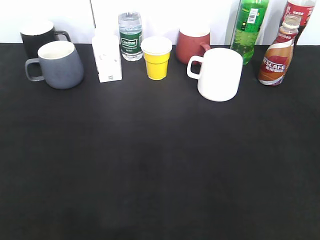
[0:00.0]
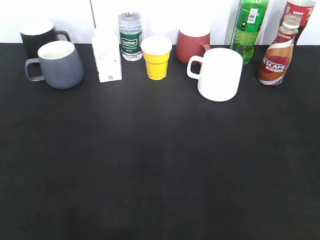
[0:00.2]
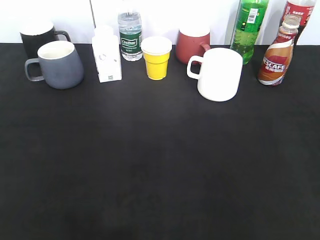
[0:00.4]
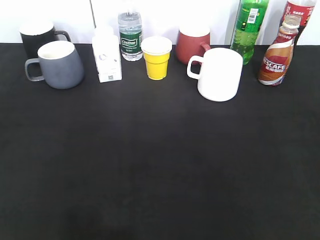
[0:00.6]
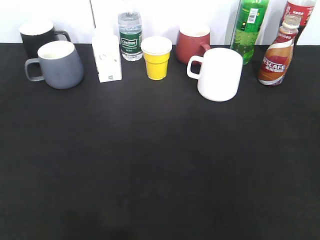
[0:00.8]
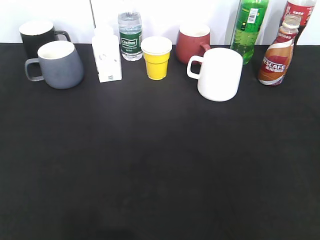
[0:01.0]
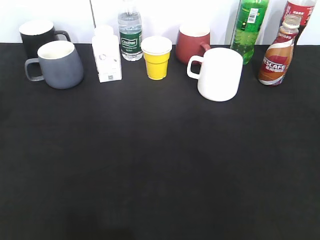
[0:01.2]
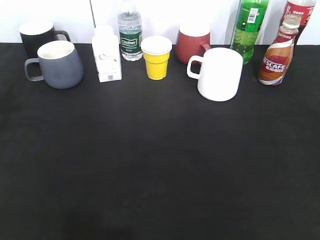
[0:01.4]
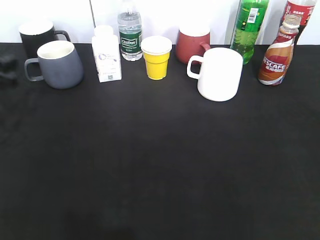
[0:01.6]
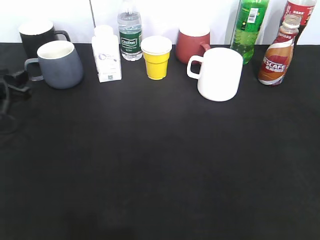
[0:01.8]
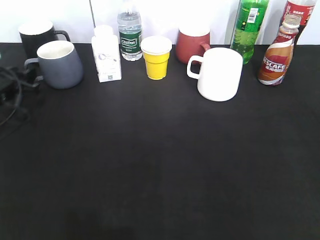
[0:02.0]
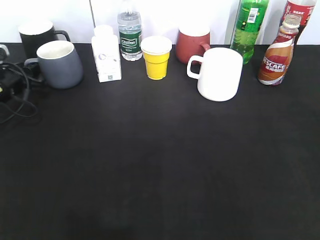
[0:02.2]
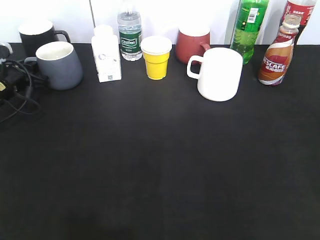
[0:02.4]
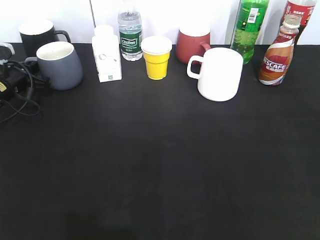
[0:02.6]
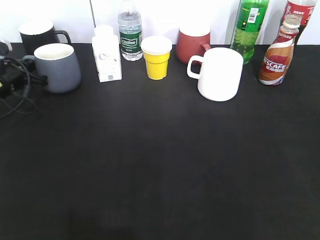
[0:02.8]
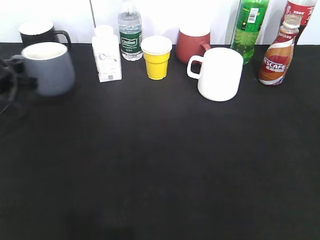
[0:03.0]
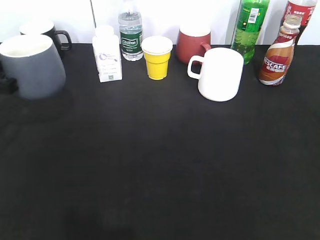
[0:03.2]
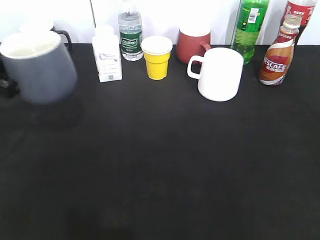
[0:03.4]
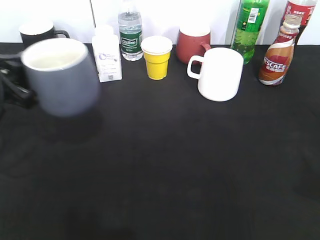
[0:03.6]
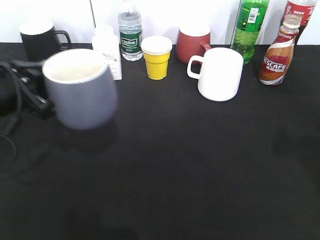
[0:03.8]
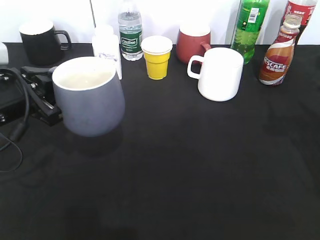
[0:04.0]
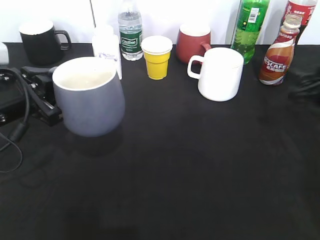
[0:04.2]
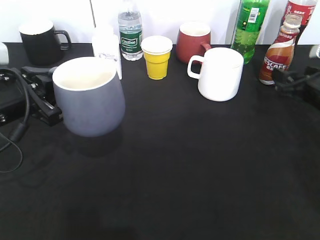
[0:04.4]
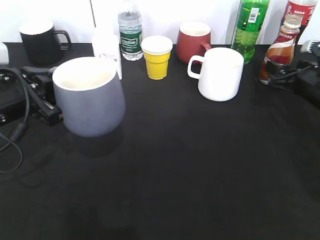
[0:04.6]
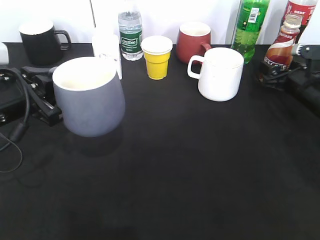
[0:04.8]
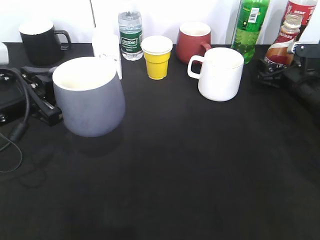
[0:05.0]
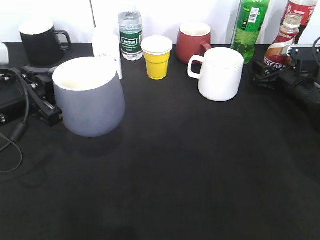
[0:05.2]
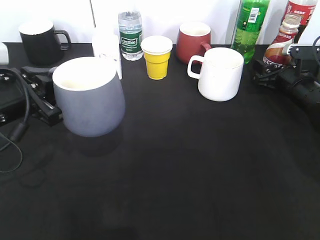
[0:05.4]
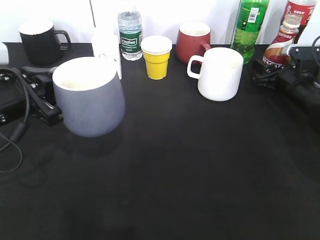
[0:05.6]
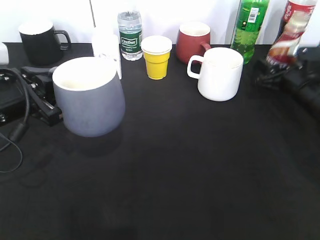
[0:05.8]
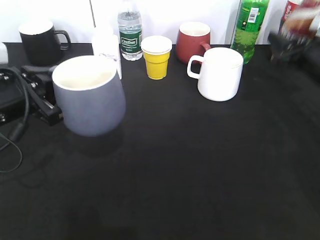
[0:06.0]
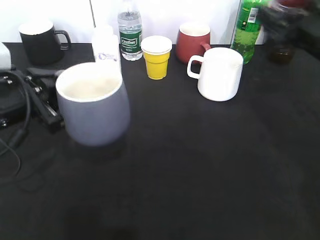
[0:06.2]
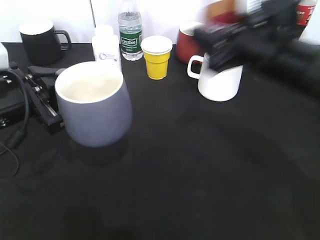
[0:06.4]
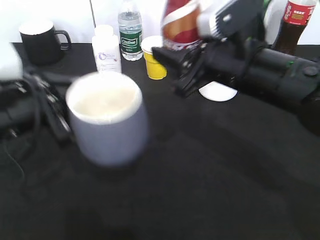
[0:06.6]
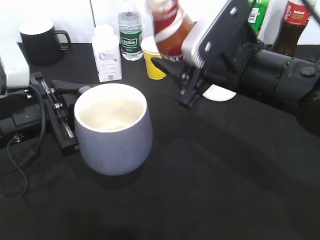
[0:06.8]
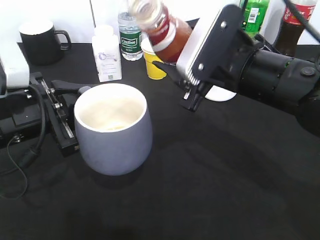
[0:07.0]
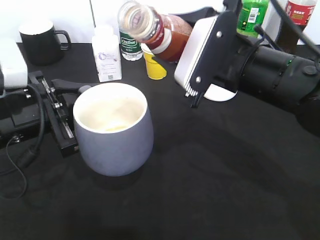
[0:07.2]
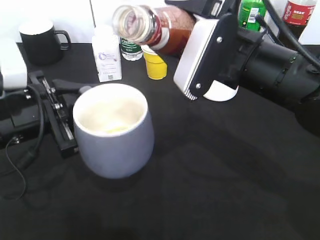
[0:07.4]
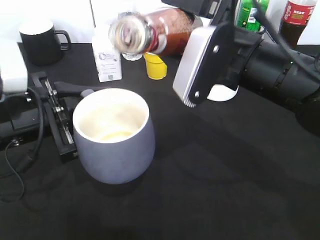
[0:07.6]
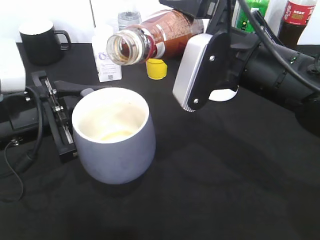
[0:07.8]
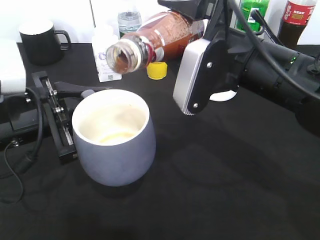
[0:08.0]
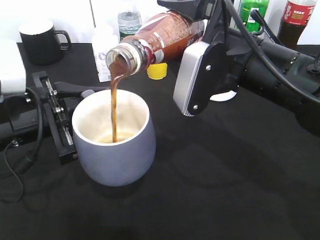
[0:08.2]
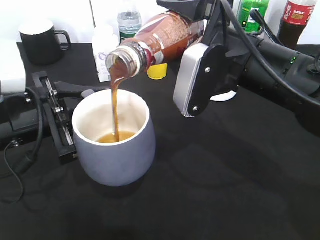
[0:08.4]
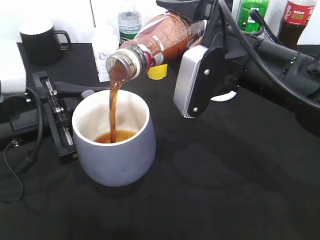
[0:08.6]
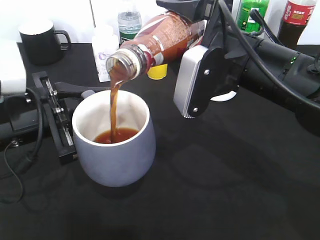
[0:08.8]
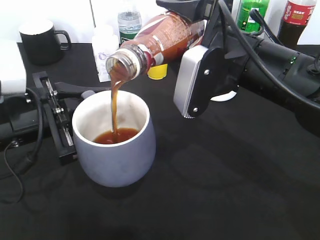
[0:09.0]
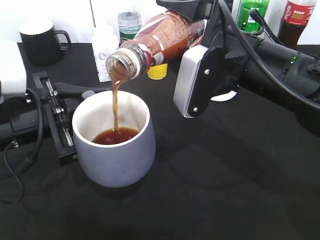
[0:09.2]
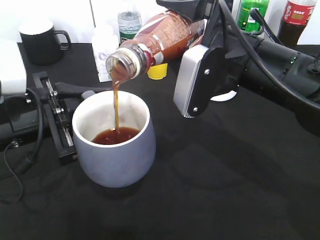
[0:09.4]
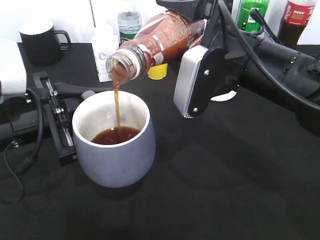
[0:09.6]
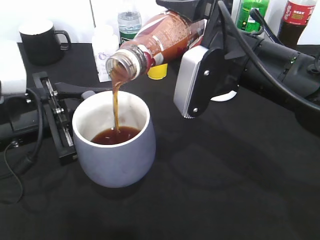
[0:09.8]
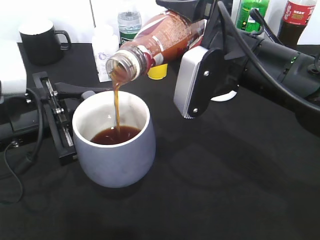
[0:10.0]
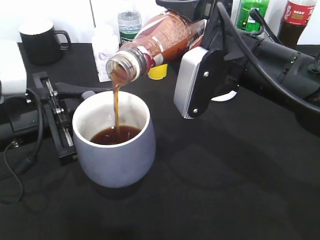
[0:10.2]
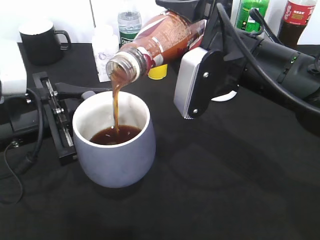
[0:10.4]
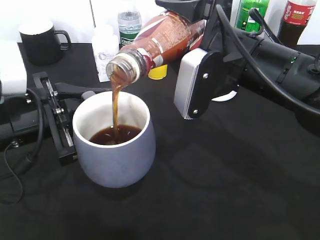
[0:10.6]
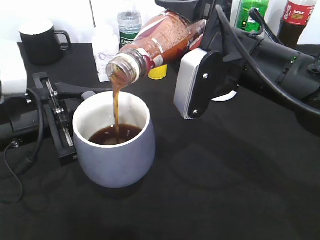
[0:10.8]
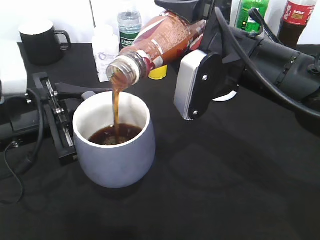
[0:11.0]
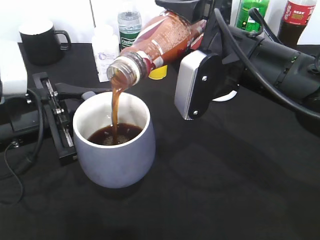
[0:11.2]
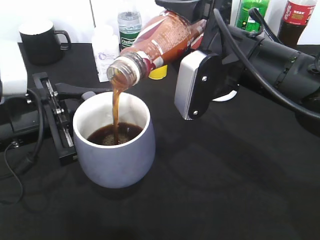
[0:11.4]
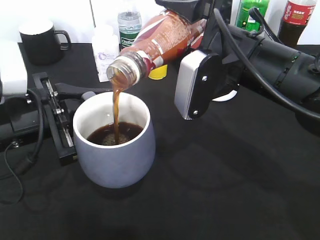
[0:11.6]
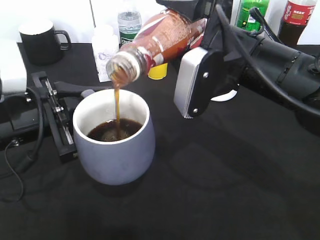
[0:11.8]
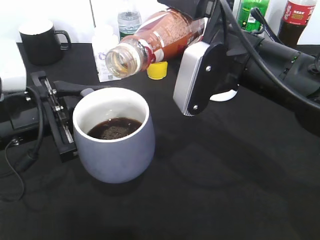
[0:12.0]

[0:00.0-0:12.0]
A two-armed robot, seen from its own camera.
Step, 0:02.8 to 0:03.8: Lift the grey cup with left gripper.
Step, 0:04.0 to 0:05.6: Grasp the bottle with coffee with right gripper.
0:00.0 to 0:01.6: The left gripper travels forward by approximately 30 cm.
0:01.6 to 0:03.0: The left gripper closes its fingers.
0:03.0 to 0:04.4: The left gripper goes about 15 cm backward and to the right. The right gripper shifts some 35 cm forward and downward, and opens.
0:04.4 to 0:06.0: The right gripper closes up.
0:06.0 to 0:07.6: The right gripper moves to the left and backward, roughly 20 cm.
0:07.6 to 0:09.0: There are only small adjustments of the grippers.
0:09.0 to 0:10.4: Neither gripper changes place.
0:10.4 to 0:12.0: Both grippers stay put.

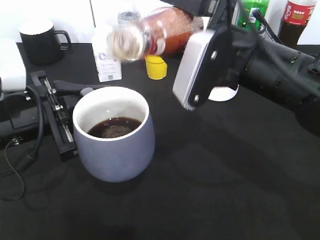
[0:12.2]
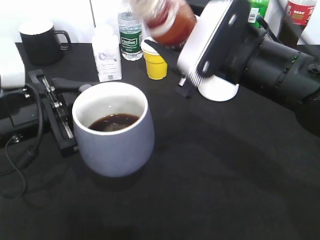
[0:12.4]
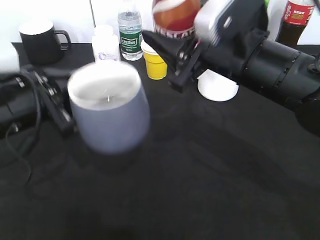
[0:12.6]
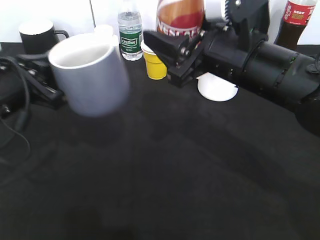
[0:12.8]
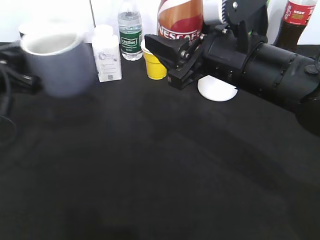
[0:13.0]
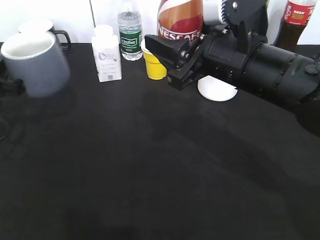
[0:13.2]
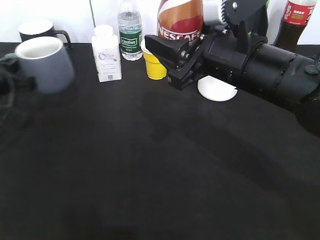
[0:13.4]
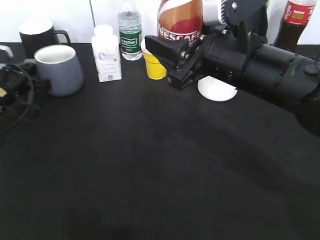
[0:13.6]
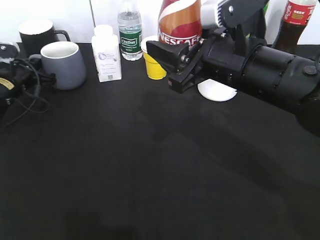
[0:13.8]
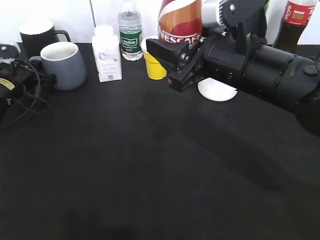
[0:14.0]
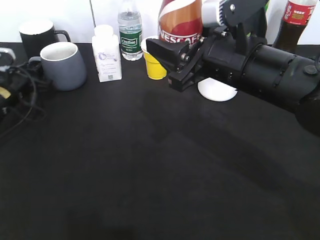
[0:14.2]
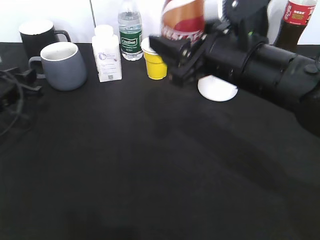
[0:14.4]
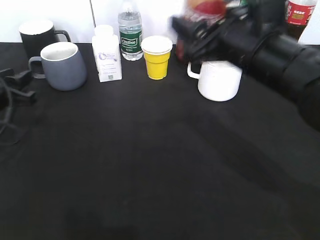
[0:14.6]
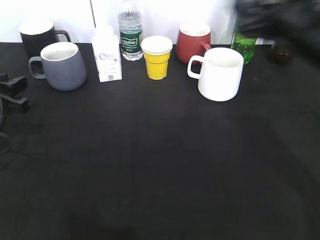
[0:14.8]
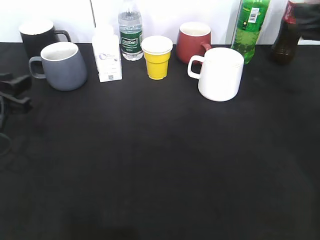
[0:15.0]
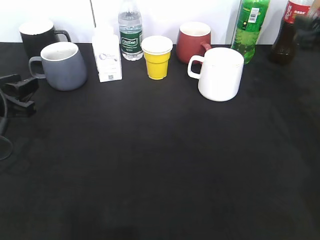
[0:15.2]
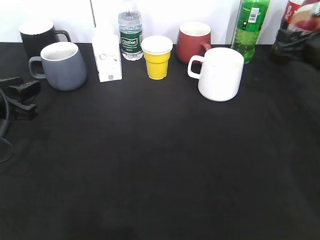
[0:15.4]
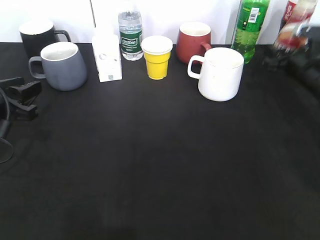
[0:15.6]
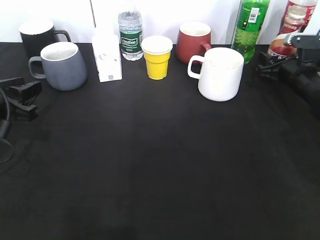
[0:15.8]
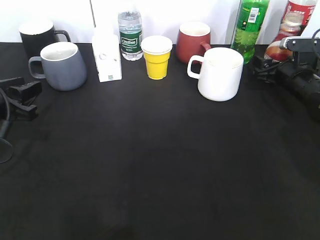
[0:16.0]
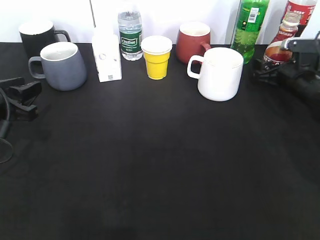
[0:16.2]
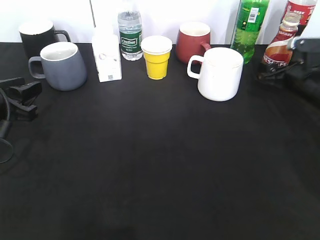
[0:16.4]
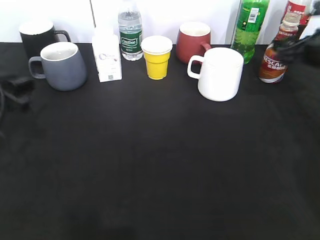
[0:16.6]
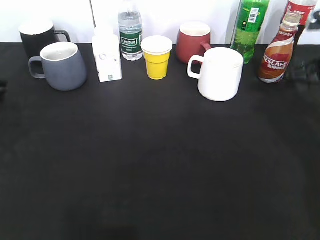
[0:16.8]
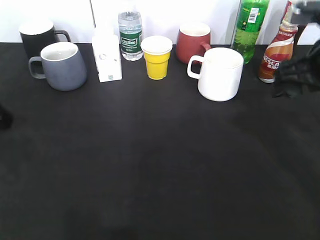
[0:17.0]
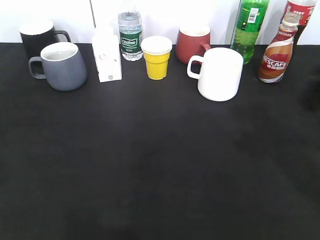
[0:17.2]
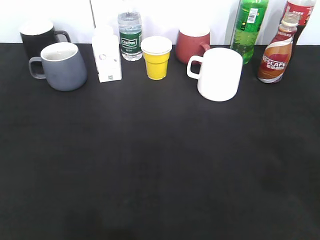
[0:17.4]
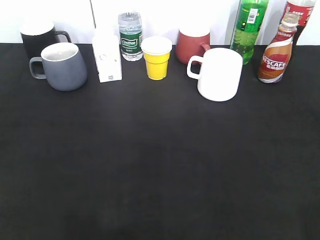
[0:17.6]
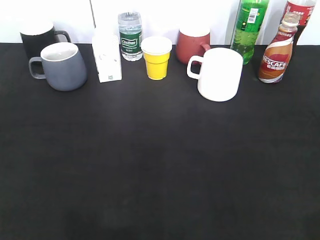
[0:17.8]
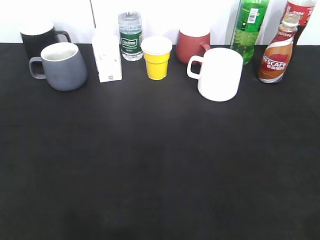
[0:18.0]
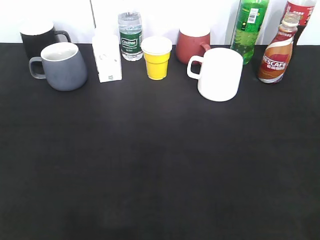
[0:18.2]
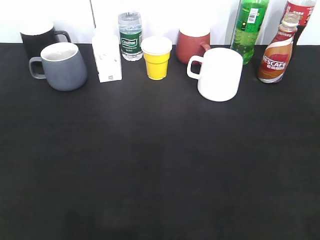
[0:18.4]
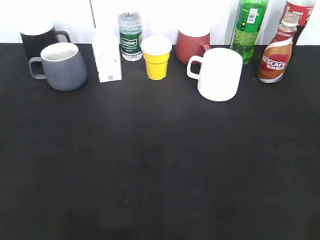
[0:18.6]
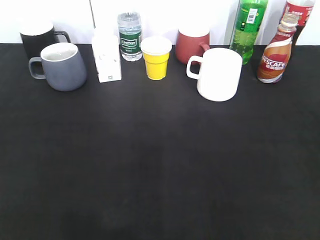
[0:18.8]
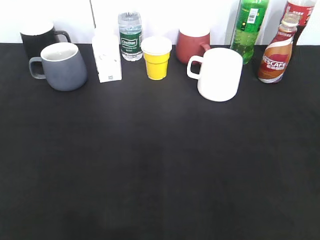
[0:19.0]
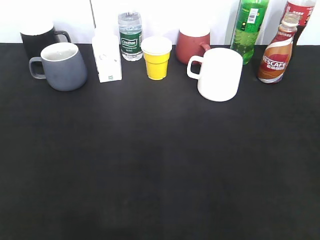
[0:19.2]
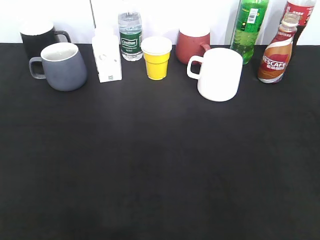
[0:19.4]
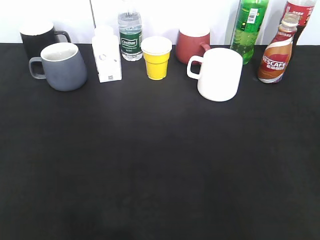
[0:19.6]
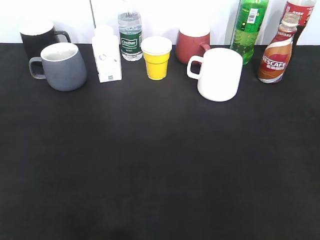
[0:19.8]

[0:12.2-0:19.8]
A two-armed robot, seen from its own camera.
Step, 0:14.8 to 0:16.8: Place the coffee bottle on the table with right gripper.
0:12.2 to 0:13.8: The left gripper travels forward, to the left and downward by roughly 25 cm.
0:13.8 to 0:15.2: The right gripper is displaced to the right and forward by approximately 20 cm. The left gripper moves backward, approximately 15 cm, and opens.
0:15.2 to 0:16.8: The left gripper moves upward, approximately 5 cm. The right gripper goes downward and returns, some 10 cm each way, and opens its fingers.
0:16.8 to 0:18.2: The grippers both shift backward by roughly 25 cm. The left gripper opens.

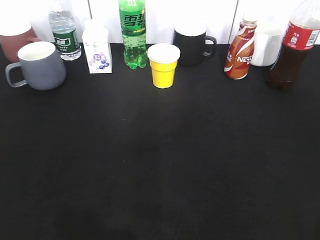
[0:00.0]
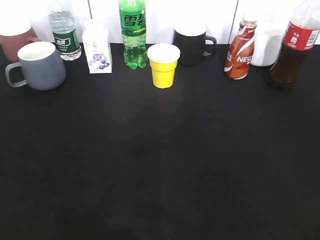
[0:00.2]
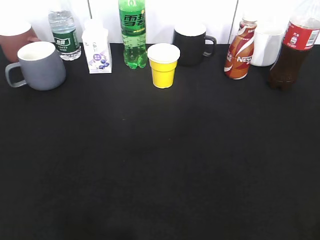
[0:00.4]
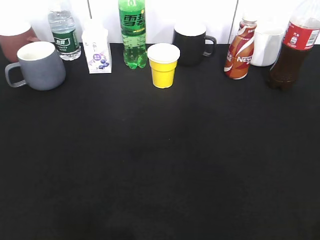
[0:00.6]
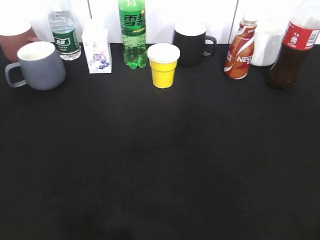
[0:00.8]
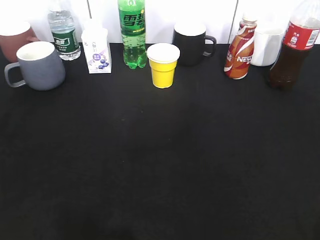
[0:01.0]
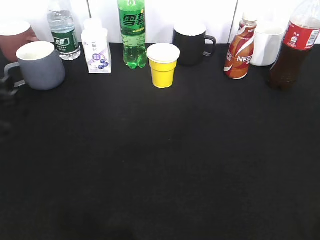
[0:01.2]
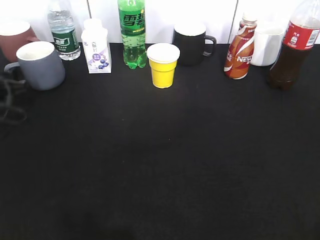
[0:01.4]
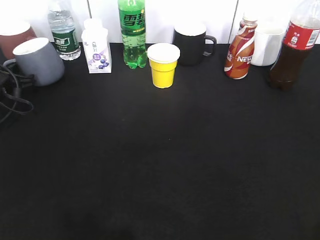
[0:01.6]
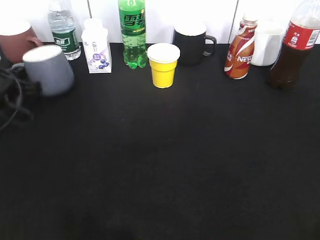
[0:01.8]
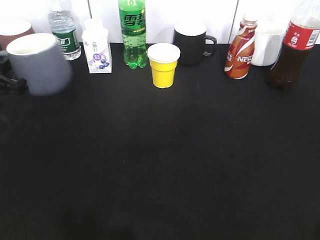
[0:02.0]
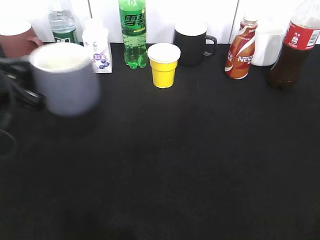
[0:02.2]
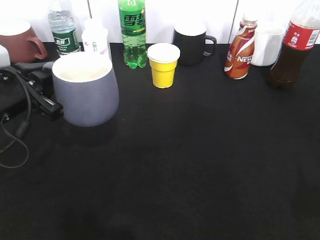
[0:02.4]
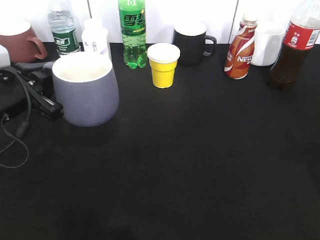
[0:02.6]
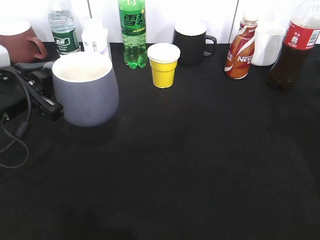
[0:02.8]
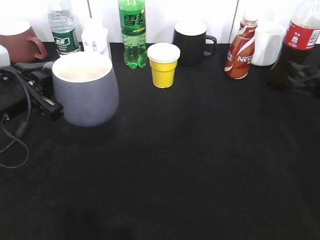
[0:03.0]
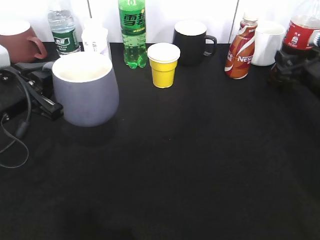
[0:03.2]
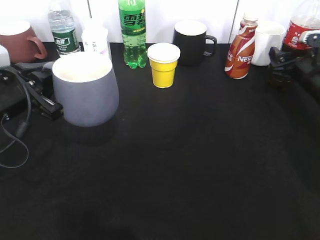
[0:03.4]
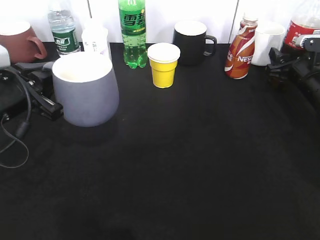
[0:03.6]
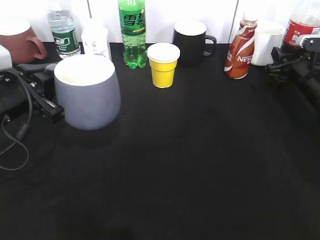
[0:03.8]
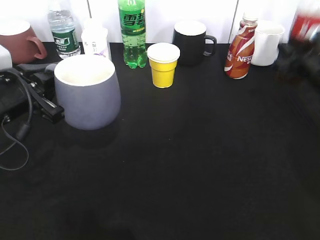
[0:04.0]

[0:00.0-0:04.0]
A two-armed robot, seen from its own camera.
Step, 0:00.0 to 0:01.6: Grasp the grey cup with left gripper.
Step, 0:02.0 to 0:02.4: Lift the grey cup with left gripper.
0:00.0 to 0:01.4: The left gripper goes roughly 40 cm forward and downward, and closes its fingers.
0:01.4 to 0:02.6: The right gripper heads forward, covering about 15 cm, while the left gripper travels backward, to the right and upward by roughly 15 cm, and closes its fingers.
0:02.6 to 0:04.0: The right gripper goes about 25 cm forward and downward, and closes up.
